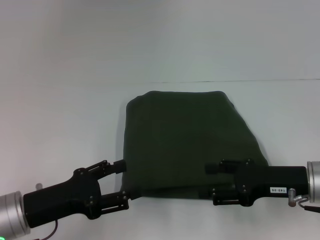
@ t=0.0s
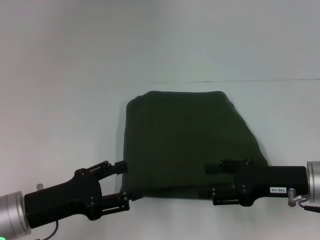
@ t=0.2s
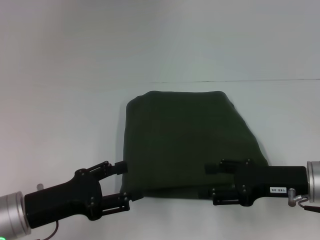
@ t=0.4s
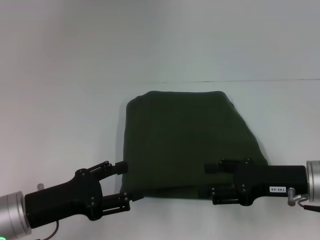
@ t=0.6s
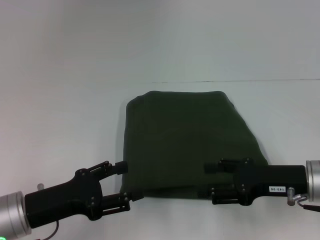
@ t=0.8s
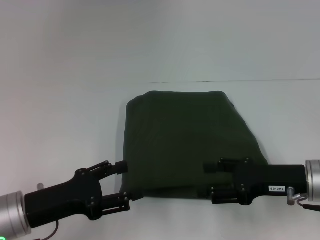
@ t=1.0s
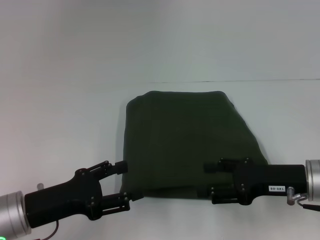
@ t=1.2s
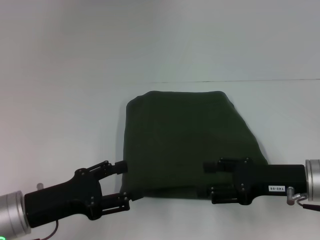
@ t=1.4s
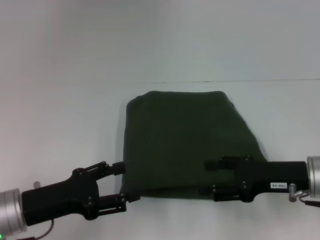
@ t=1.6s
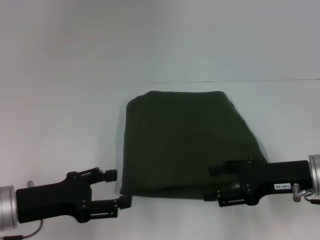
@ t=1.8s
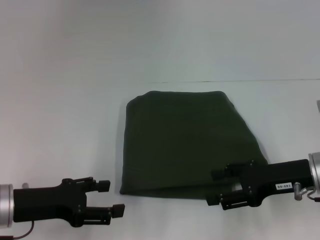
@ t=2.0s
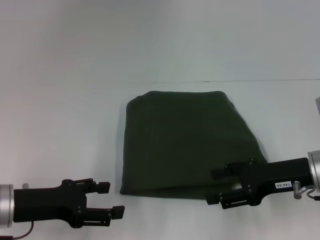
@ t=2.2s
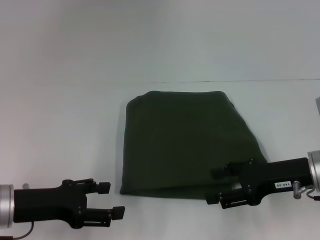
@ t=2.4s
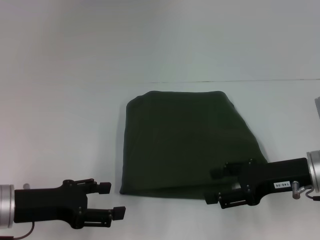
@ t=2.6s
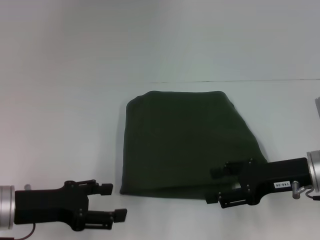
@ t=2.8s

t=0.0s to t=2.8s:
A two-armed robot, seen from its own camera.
t=0.0s to t=1.4s: Both grippers stay about where they are.

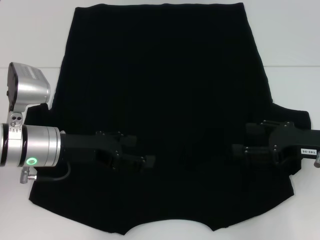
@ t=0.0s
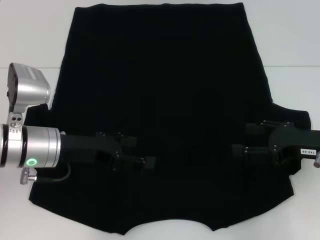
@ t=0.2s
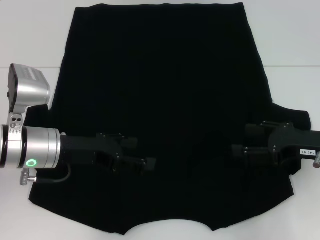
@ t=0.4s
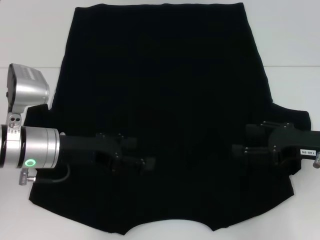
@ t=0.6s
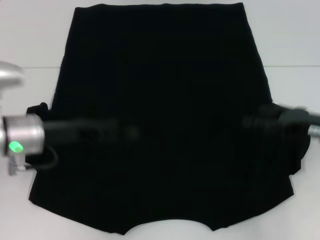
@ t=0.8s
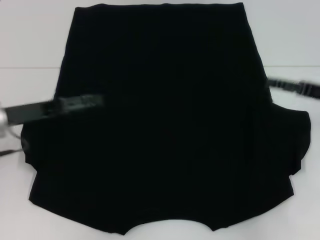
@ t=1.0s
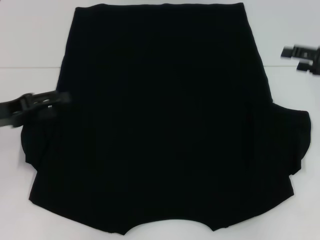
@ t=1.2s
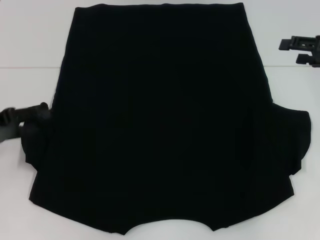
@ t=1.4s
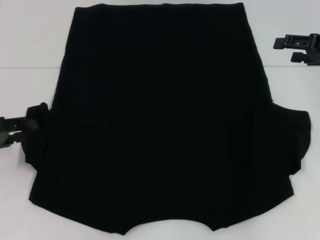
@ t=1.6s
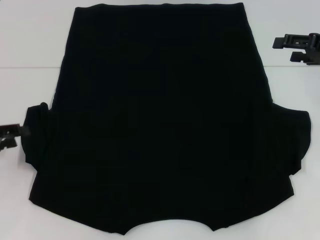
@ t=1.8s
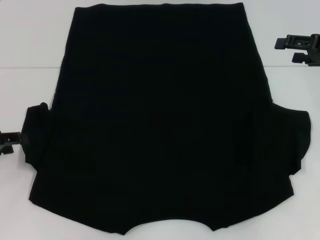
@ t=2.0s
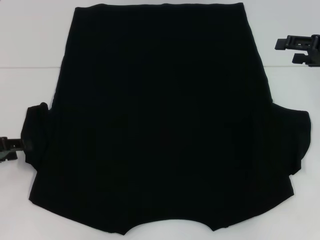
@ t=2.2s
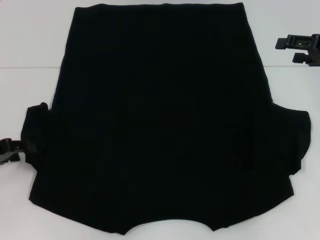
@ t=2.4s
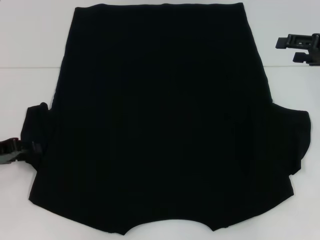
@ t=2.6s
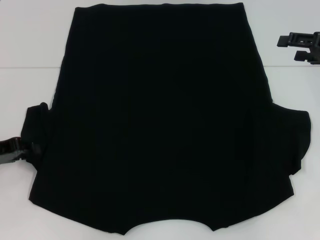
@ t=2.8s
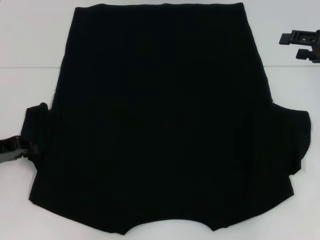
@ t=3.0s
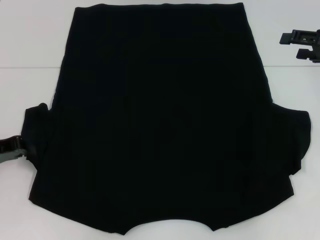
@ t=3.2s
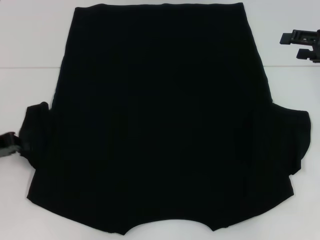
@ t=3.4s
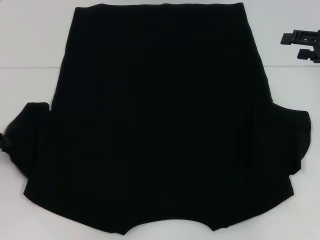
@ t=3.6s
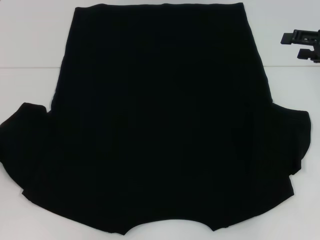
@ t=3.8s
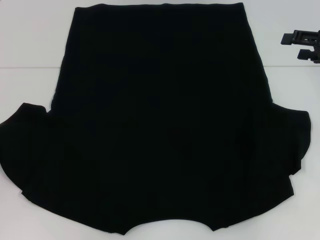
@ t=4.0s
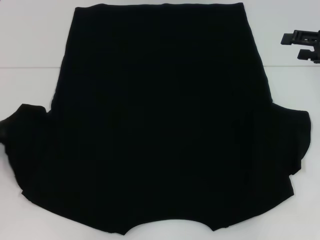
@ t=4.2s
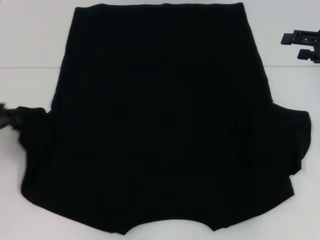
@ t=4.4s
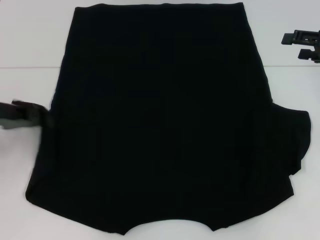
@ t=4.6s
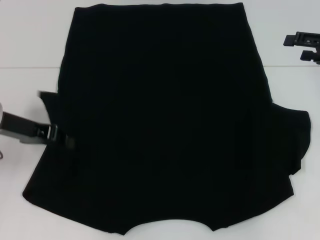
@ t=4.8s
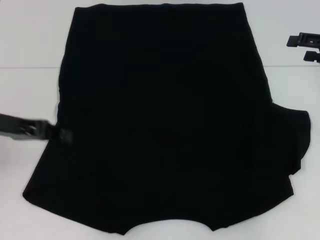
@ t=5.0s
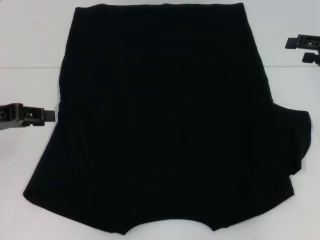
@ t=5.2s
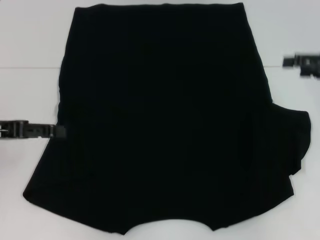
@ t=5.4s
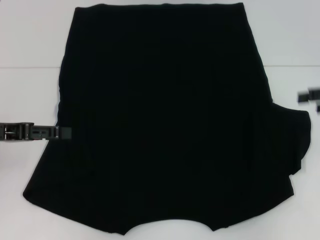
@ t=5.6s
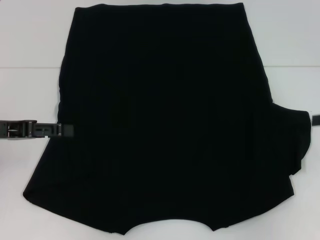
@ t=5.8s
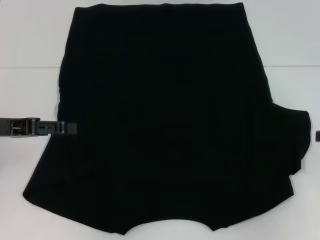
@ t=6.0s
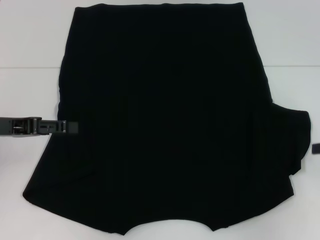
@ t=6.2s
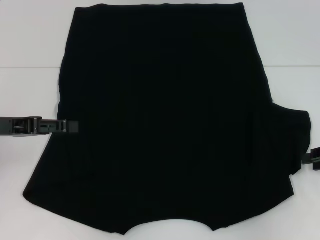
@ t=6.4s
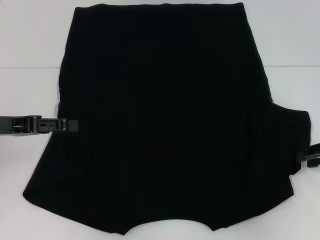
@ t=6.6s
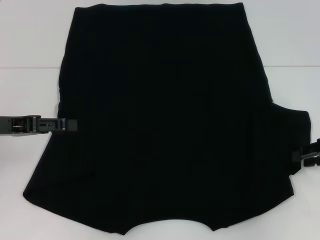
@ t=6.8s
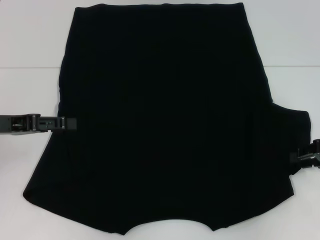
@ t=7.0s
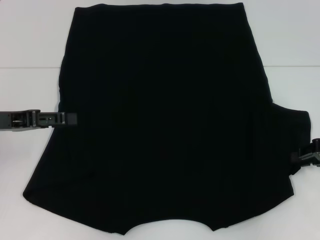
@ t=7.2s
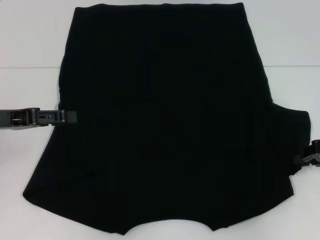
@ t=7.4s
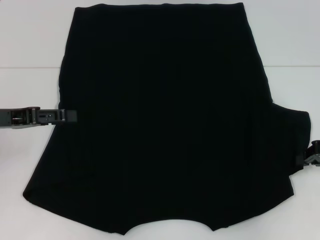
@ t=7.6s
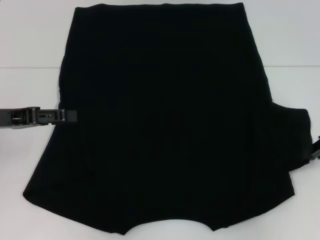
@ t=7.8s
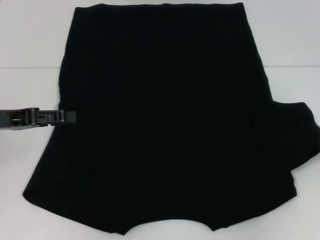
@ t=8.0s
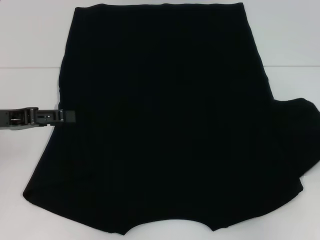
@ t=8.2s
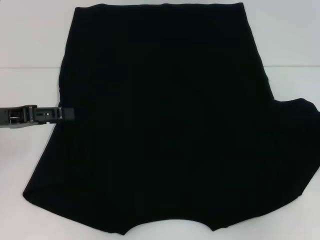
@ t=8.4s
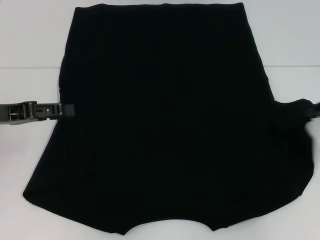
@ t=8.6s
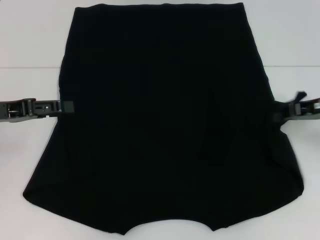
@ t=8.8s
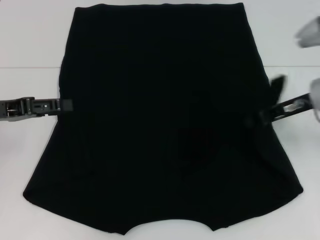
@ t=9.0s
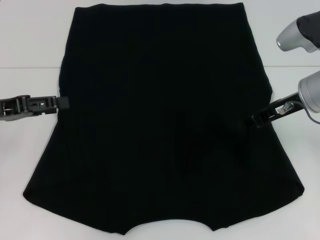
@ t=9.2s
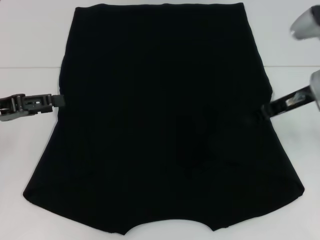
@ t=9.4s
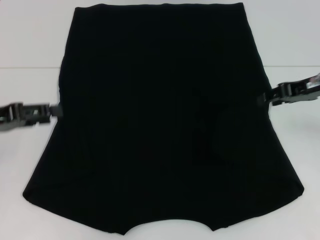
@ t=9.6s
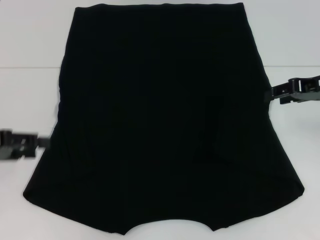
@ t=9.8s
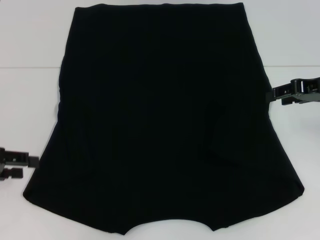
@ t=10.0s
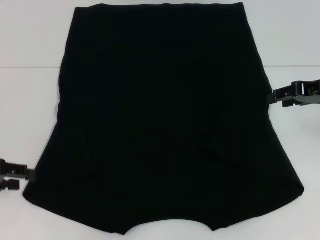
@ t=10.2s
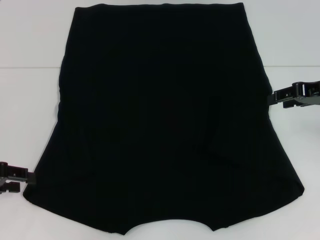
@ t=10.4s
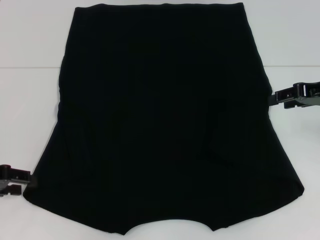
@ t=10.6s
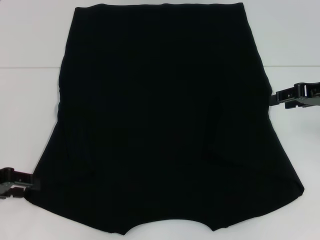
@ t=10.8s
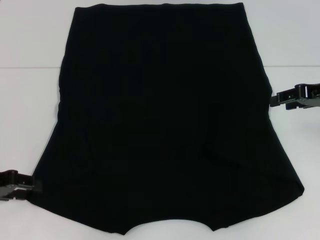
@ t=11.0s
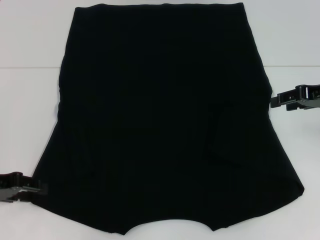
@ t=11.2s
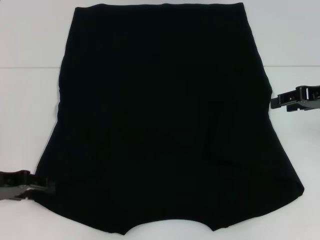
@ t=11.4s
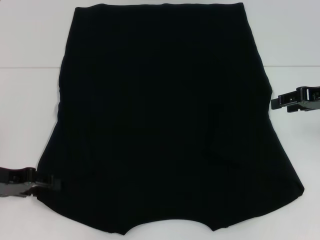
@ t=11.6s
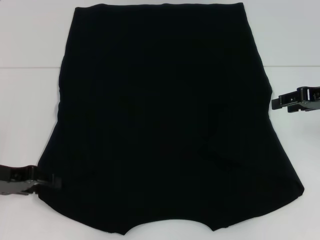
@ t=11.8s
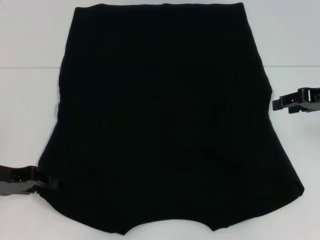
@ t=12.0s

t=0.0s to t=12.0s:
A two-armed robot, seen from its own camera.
Step, t=0.0s to t=5.0s: Fold the bottom left sleeve with your left hand.
Step, t=5.2s to t=9.4s: Fold the bottom right sleeve with your right hand.
t=0.0s to t=1.6s: The right gripper moves forward and upward, approximately 10 cm; the left gripper is displaced to the left by some 15 cm.
t=1.6s to t=3.0s: There are only small adjustments of the grippers.
t=3.0s to t=4.4s: The left gripper changes place by approximately 5 cm, and closes.
t=4.4s to t=6.0s: The right gripper moves backward and to the right, approximately 10 cm. The left gripper opens.
t=6.0s to t=7.6s: The right gripper changes place by approximately 5 cm, and closes up.
t=7.6s to t=9.0s: The right gripper travels to the left and forward by roughly 10 cm.
t=9.0s to t=10.4s: The left gripper moves about 5 cm, while the right gripper goes roughly 5 cm to the right, and opens its fingers.
t=10.4s to t=12.0s: The grippers stay close to where they were, moving slightly.

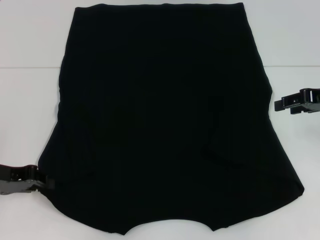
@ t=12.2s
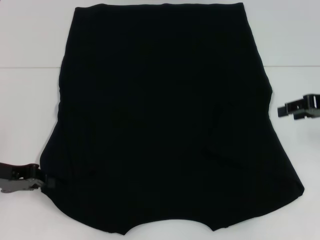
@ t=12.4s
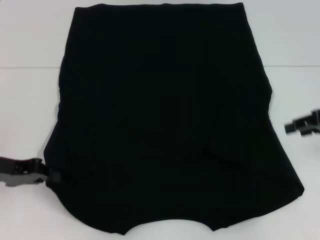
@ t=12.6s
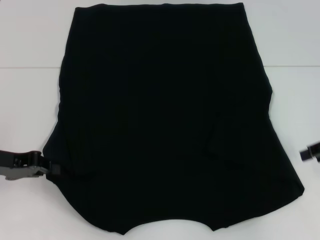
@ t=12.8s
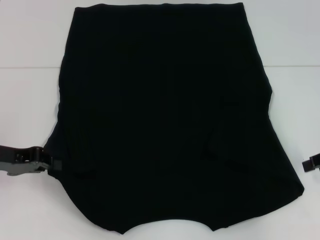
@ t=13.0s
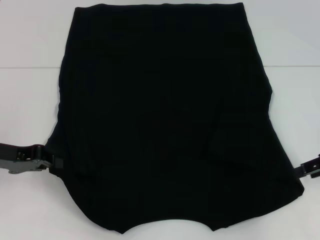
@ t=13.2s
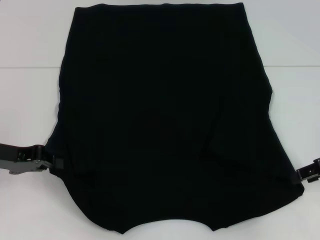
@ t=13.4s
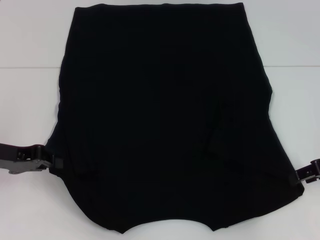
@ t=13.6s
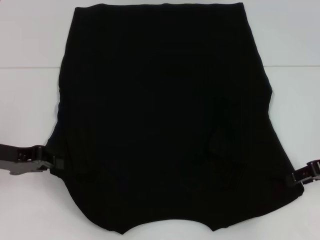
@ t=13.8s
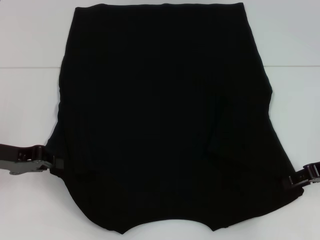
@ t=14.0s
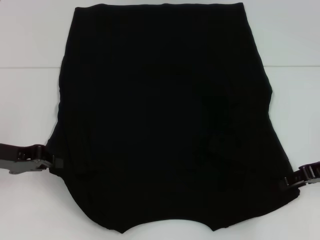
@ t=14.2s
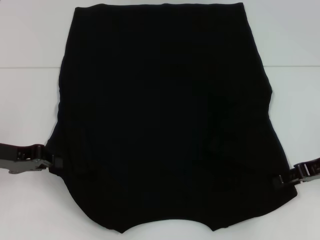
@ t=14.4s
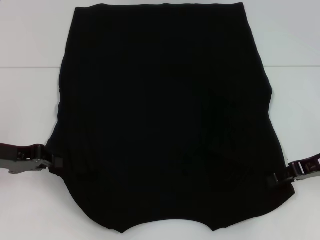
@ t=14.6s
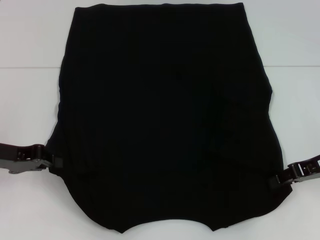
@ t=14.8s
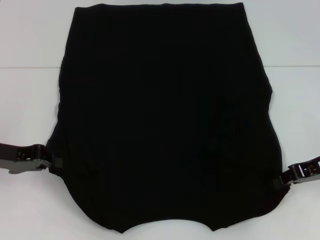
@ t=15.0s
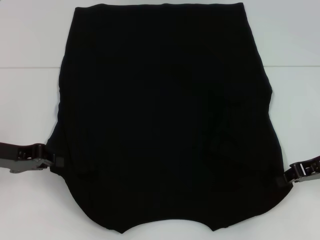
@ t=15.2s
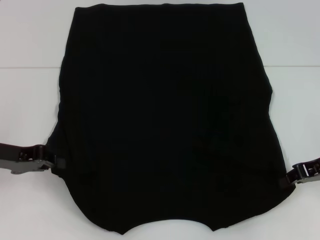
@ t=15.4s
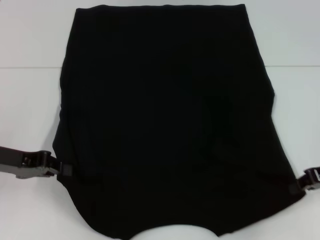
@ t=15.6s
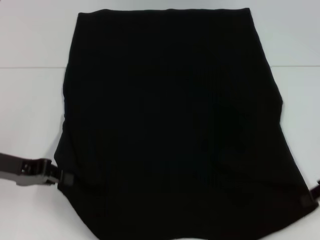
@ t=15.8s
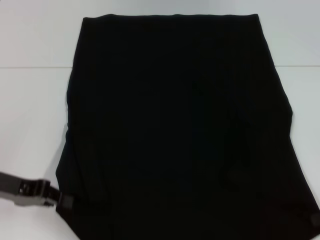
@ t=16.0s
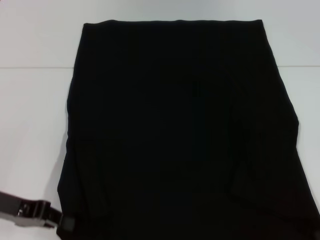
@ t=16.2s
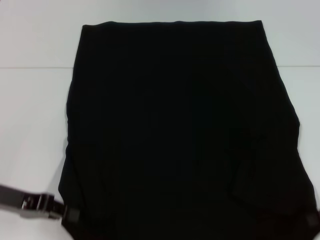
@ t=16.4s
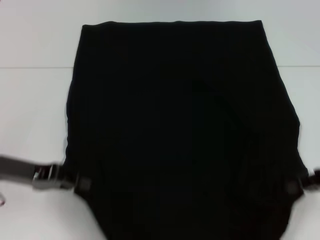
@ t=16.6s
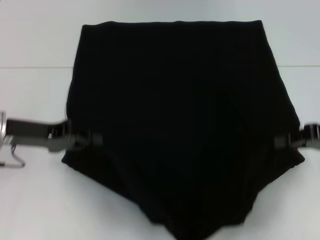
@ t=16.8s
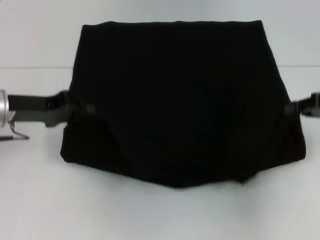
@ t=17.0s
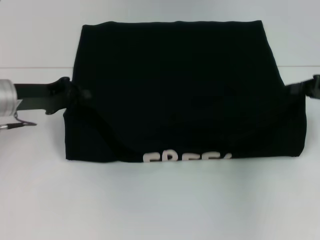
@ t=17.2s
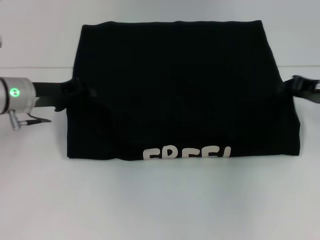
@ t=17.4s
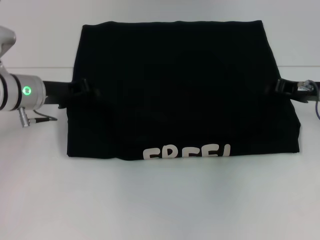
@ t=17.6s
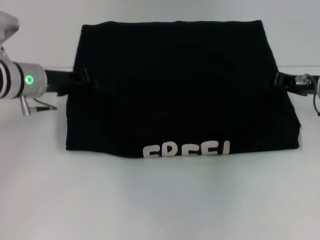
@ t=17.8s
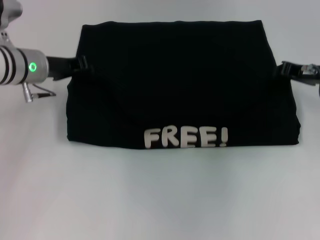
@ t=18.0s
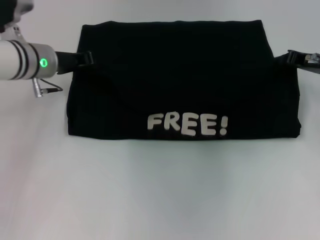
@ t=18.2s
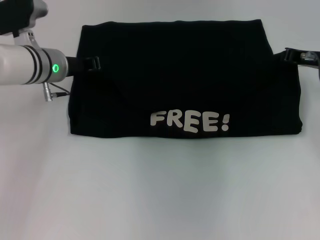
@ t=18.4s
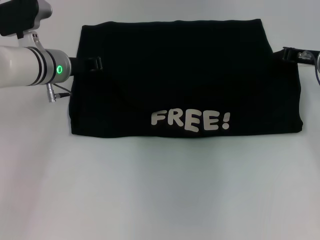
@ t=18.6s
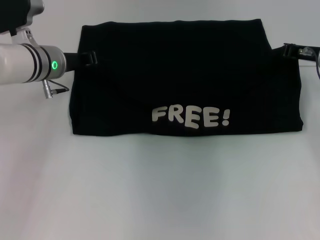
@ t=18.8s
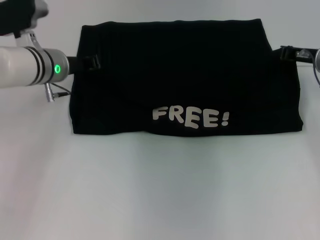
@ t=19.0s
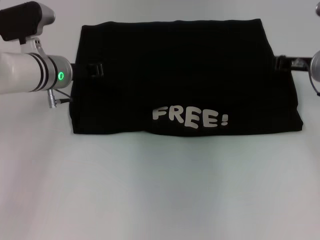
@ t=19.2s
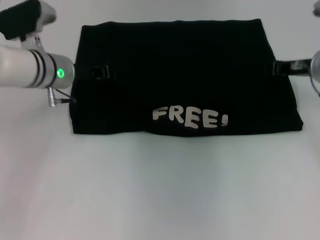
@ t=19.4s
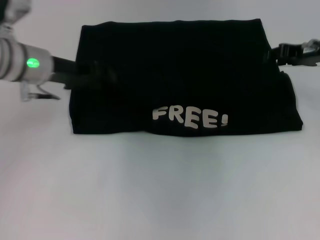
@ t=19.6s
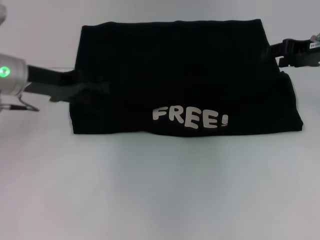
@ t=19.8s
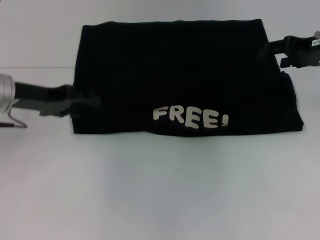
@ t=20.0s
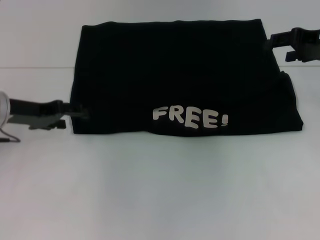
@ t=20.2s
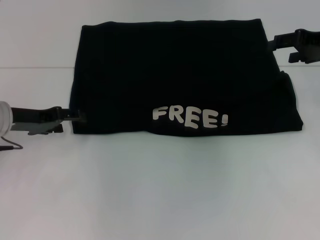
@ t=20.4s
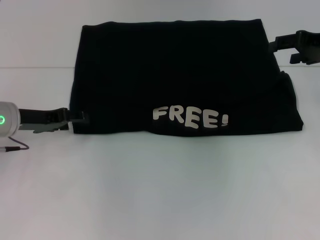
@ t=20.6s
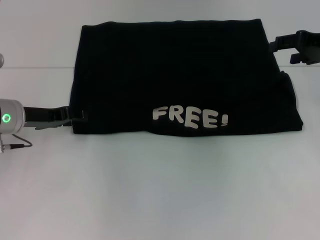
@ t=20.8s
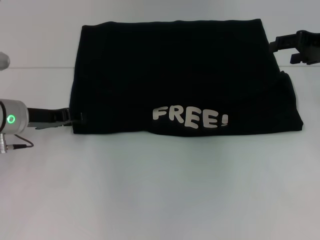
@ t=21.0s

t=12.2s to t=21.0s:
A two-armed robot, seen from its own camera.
Step, t=12.8s to t=15.4s: Grab the bottom right corner with your right hand.
Step, t=15.6s to t=19.6s: Fold the clothes with your left hand.
Step, t=15.6s to t=19.6s: Fold the clothes with your right hand.
t=12.2s to t=13.6s: The right gripper shifts some 5 cm backward.
t=13.6s to t=15.2s: The right gripper closes its fingers.
t=16.6s to t=18.0s: The grippers both shift forward by approximately 15 cm.
t=18.0s to t=19.6s: The right gripper moves upward, roughly 5 cm.
t=19.6s to t=21.0s: The right gripper opens; the left gripper travels downward by roughly 5 cm.
